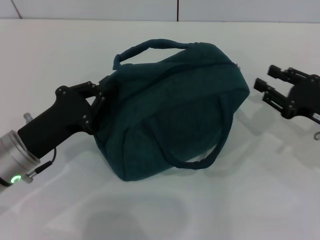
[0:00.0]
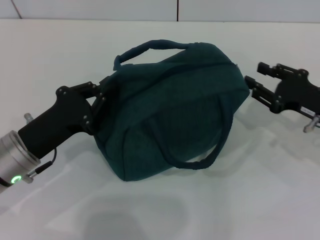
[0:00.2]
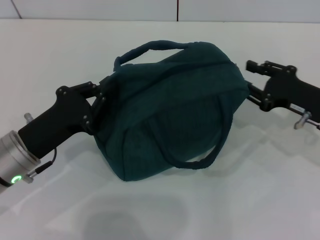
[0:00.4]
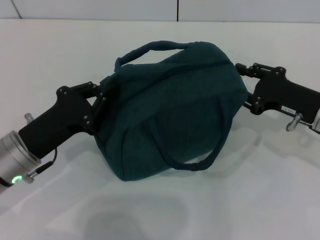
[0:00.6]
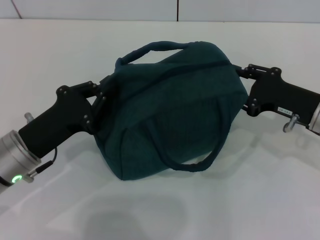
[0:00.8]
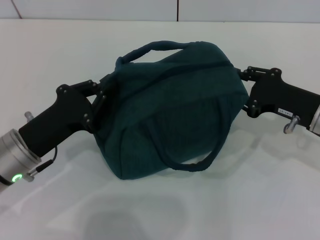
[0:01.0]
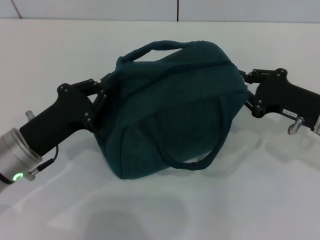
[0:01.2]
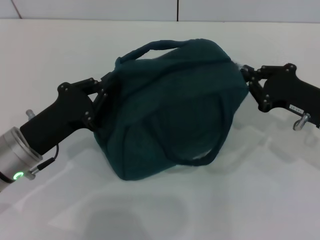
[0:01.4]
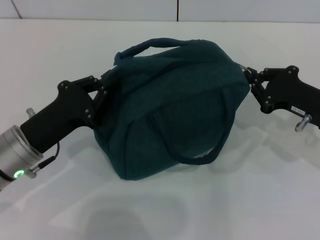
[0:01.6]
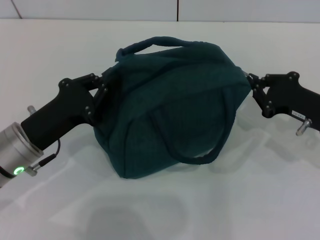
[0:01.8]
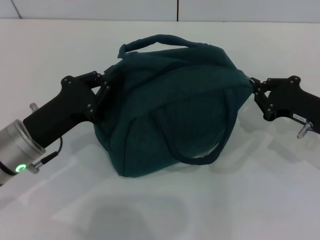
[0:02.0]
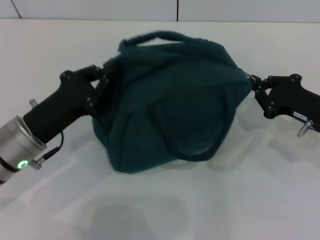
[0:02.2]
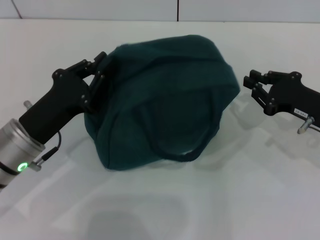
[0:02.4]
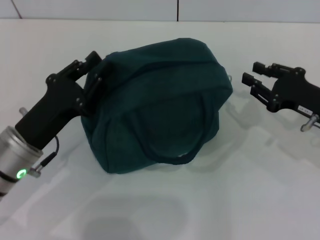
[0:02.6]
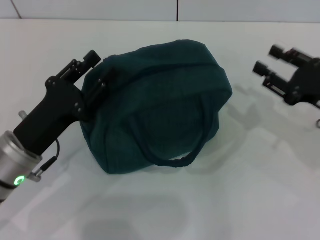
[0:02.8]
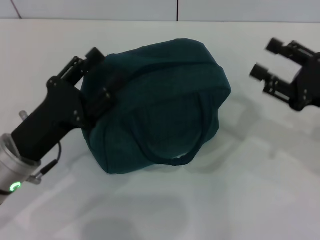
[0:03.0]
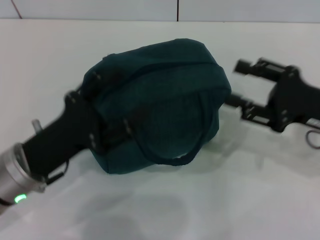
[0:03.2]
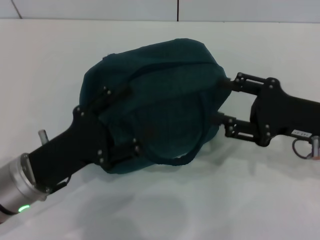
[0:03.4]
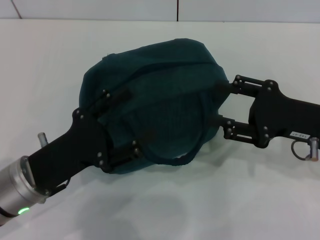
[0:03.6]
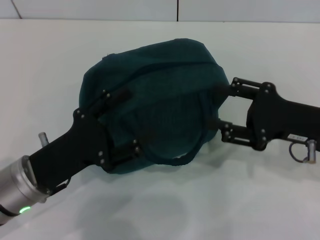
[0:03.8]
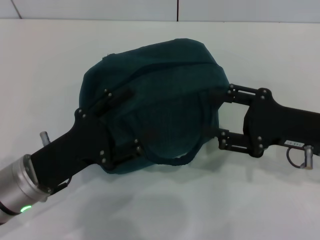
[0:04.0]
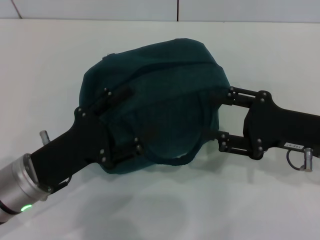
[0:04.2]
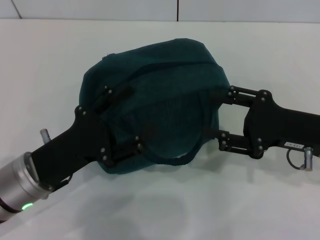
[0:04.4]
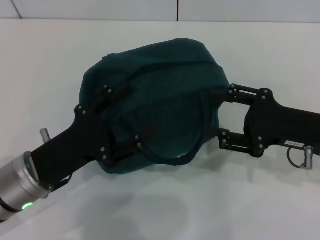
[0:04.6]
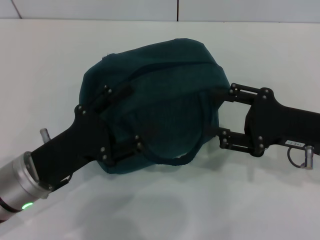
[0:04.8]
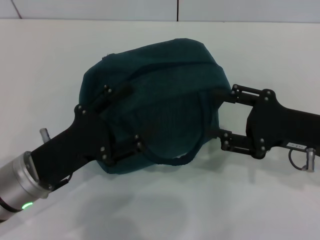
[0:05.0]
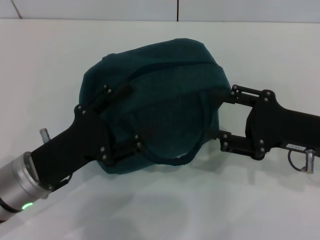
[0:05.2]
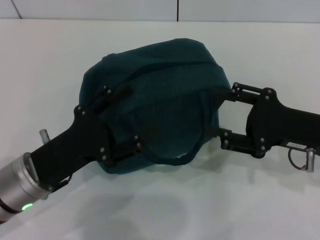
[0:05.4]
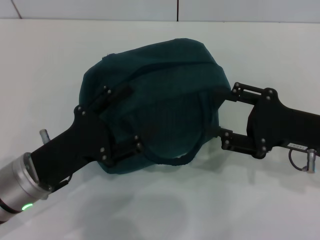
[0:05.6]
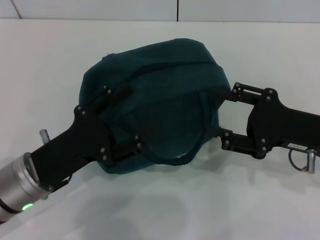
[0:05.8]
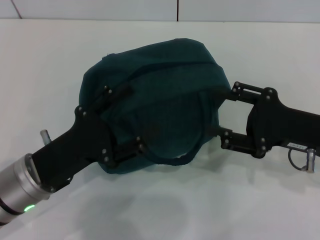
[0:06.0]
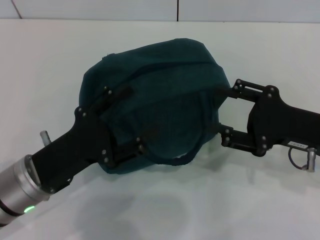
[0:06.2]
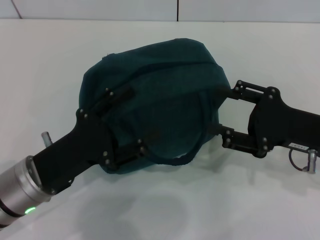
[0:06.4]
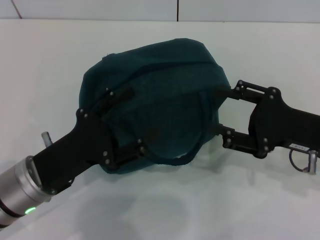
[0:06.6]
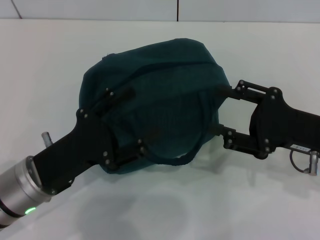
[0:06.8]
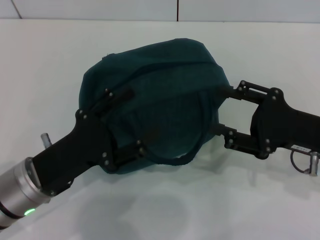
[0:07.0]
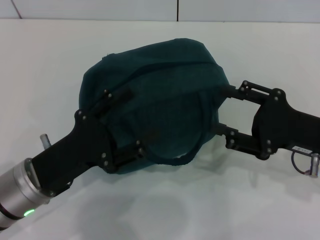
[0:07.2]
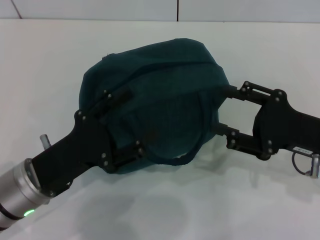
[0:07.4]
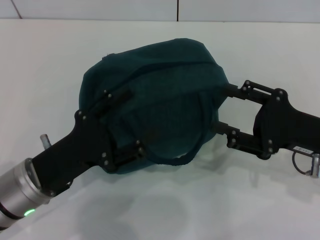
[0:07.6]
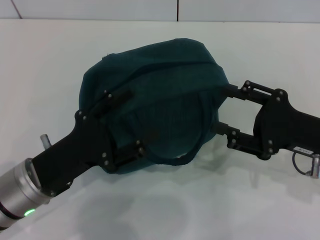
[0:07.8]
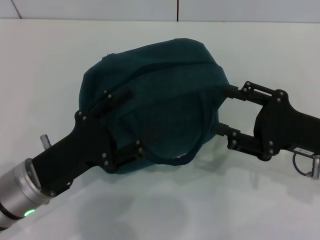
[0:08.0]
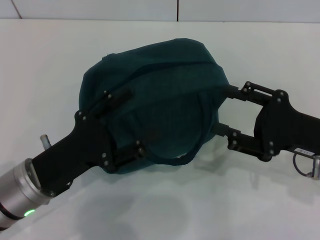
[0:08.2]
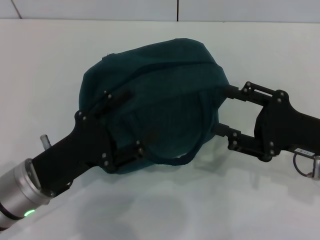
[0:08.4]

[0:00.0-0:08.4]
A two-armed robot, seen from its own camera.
Step, 0:00.0 to 0:02.2: Hold the lunch bag with your left hand.
0:00.0 to 0:02.8: The grippers move only a little.
0:02.8 to 0:04.2: The right gripper shifts by roughly 5 cm, while the left gripper opens up.
0:04.2 to 0:05.6: Both grippers stay put.
0:05.6 to 0:07.0: The two grippers keep their place.
0:07.0 to 0:08.4: Both grippers stay about where they are.
